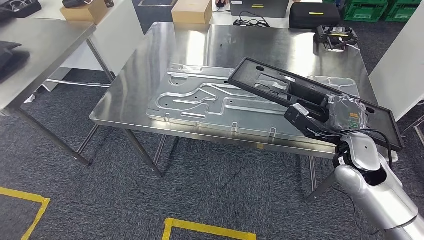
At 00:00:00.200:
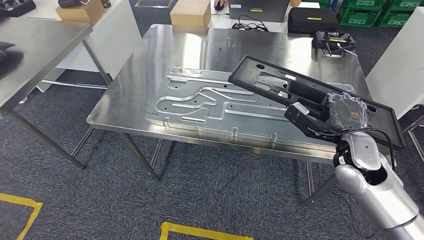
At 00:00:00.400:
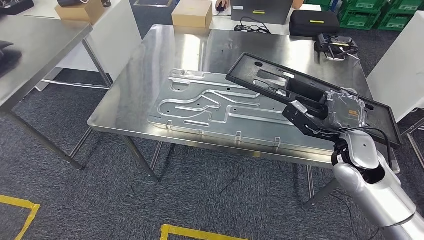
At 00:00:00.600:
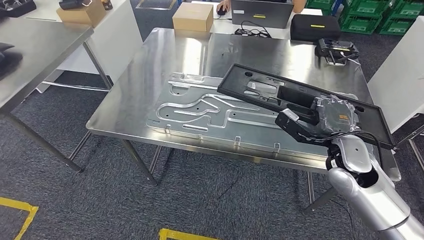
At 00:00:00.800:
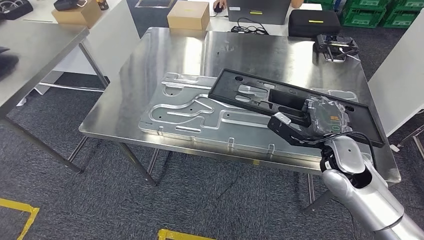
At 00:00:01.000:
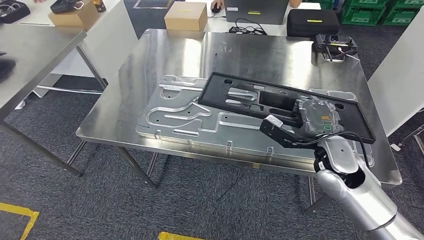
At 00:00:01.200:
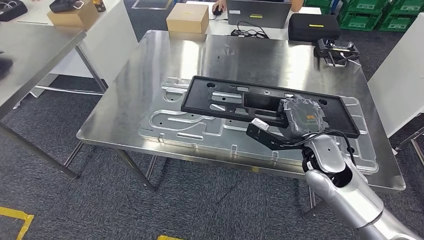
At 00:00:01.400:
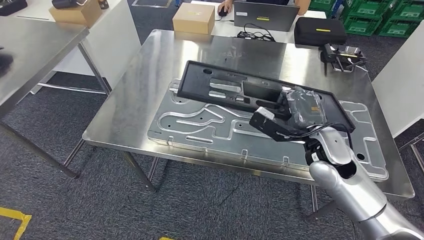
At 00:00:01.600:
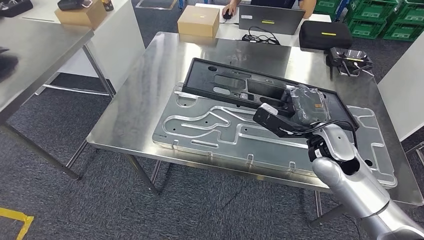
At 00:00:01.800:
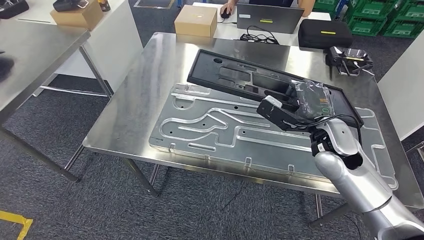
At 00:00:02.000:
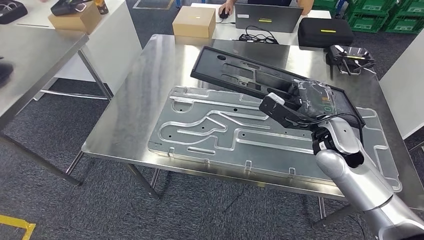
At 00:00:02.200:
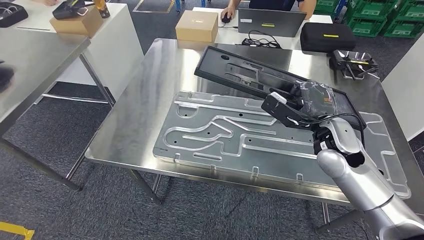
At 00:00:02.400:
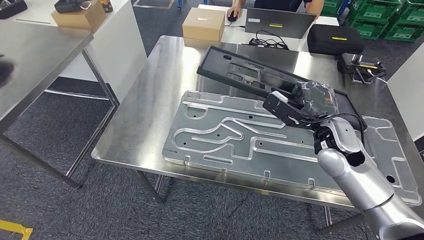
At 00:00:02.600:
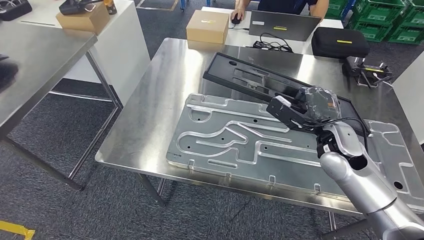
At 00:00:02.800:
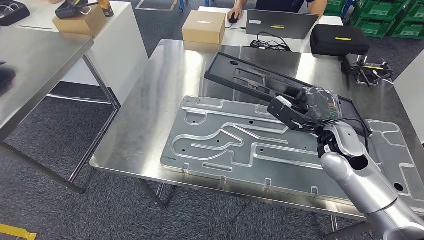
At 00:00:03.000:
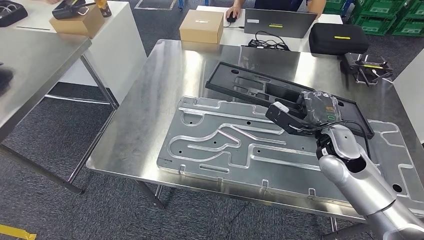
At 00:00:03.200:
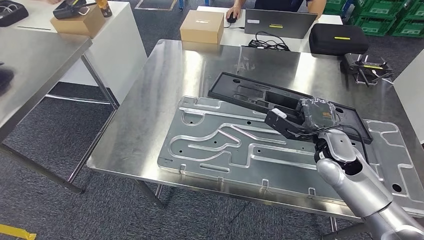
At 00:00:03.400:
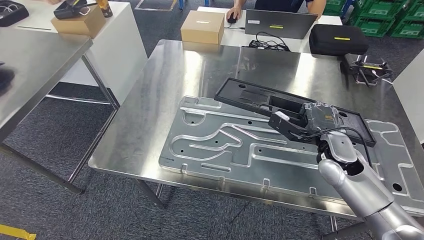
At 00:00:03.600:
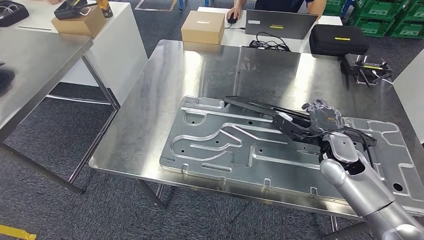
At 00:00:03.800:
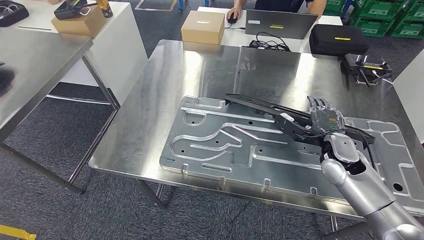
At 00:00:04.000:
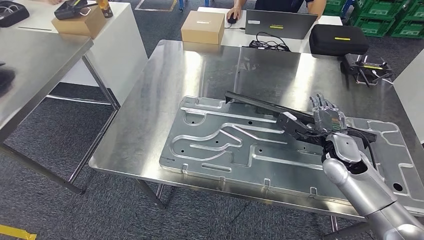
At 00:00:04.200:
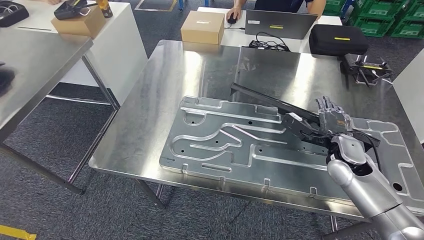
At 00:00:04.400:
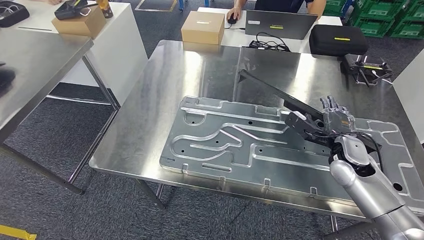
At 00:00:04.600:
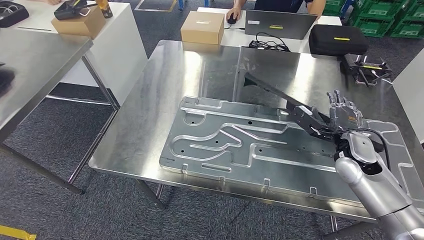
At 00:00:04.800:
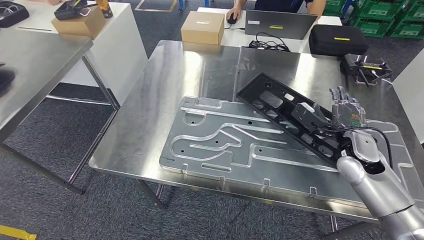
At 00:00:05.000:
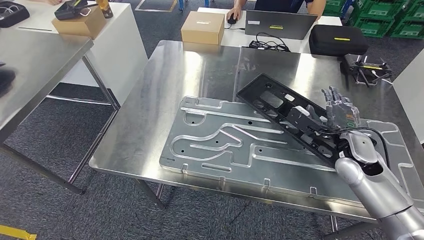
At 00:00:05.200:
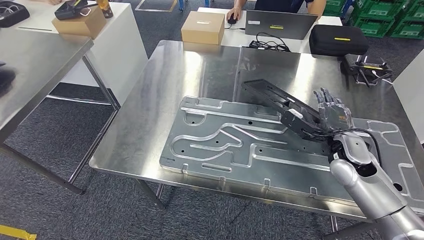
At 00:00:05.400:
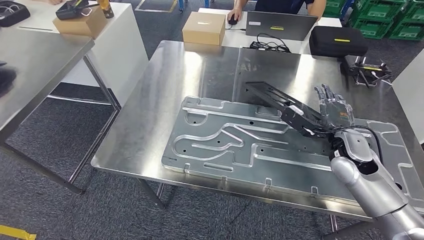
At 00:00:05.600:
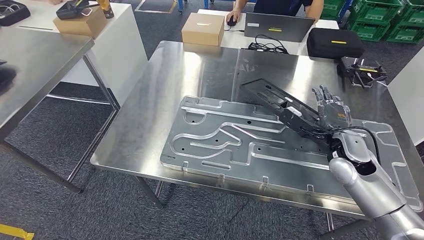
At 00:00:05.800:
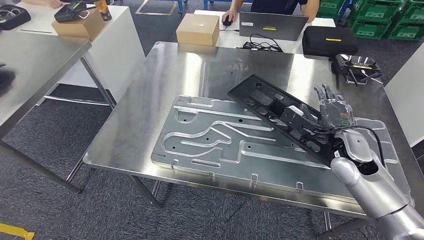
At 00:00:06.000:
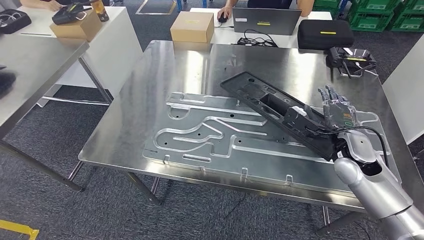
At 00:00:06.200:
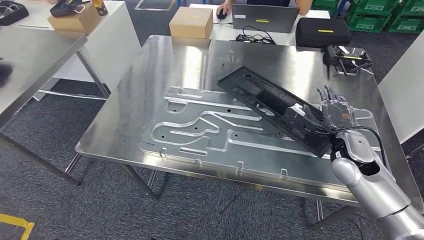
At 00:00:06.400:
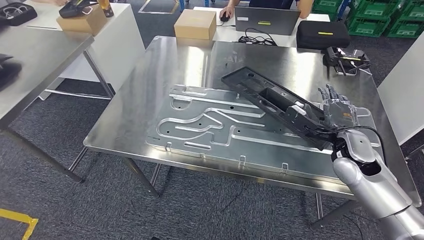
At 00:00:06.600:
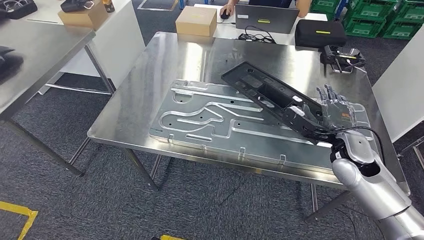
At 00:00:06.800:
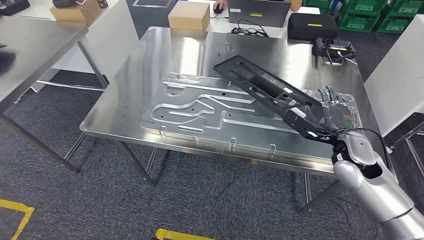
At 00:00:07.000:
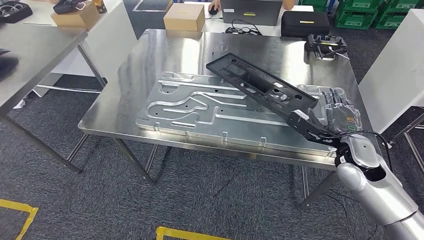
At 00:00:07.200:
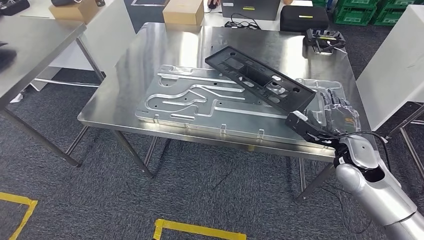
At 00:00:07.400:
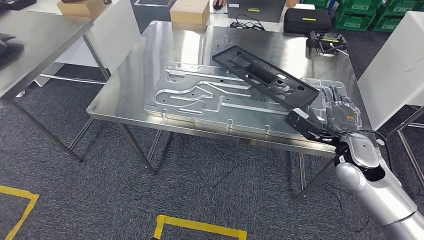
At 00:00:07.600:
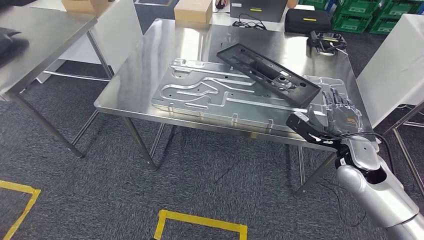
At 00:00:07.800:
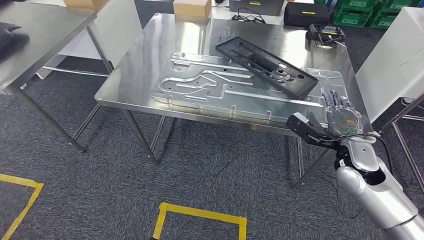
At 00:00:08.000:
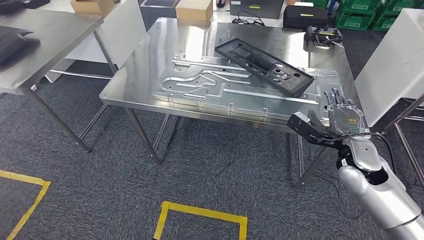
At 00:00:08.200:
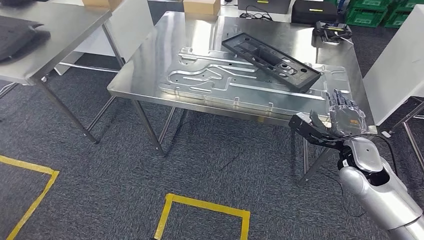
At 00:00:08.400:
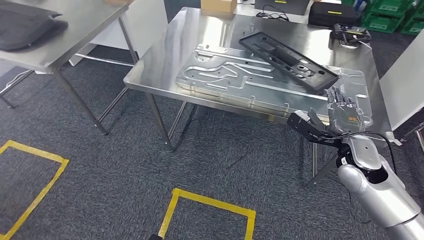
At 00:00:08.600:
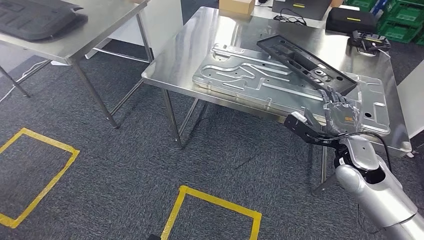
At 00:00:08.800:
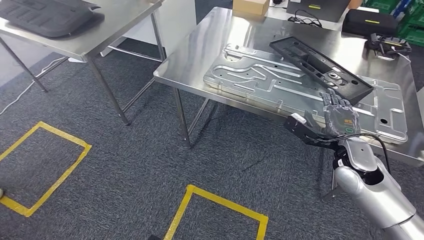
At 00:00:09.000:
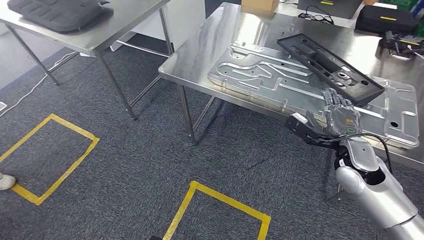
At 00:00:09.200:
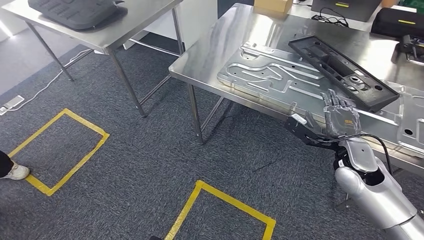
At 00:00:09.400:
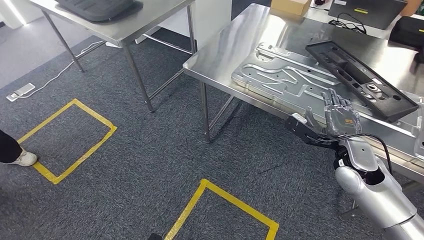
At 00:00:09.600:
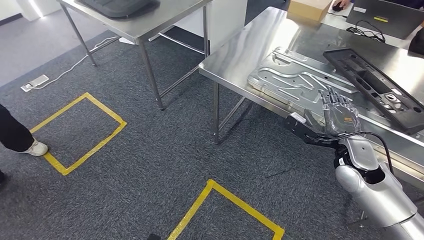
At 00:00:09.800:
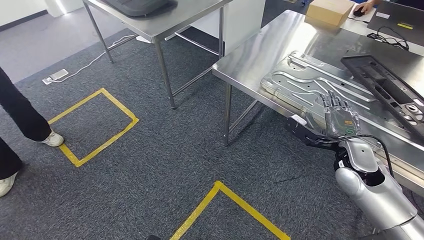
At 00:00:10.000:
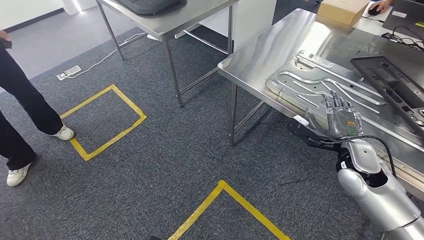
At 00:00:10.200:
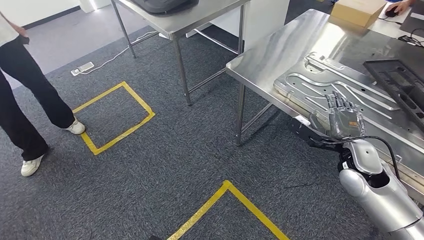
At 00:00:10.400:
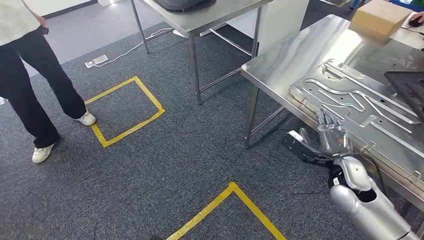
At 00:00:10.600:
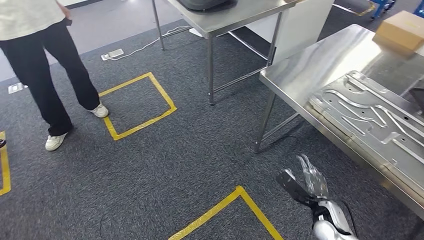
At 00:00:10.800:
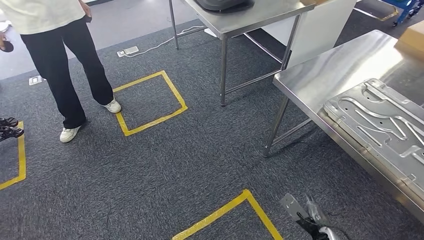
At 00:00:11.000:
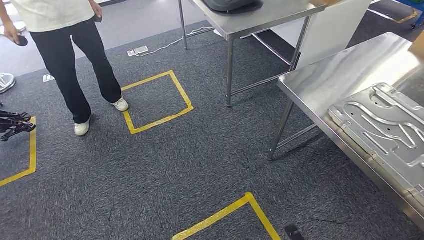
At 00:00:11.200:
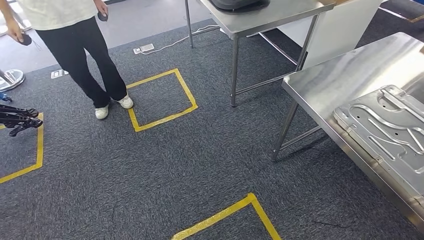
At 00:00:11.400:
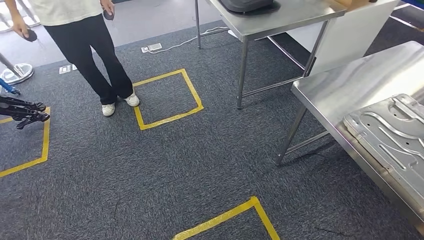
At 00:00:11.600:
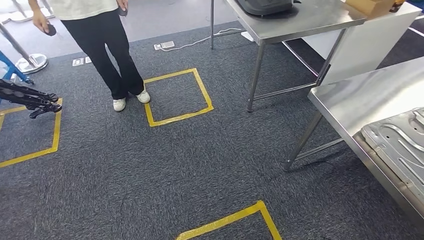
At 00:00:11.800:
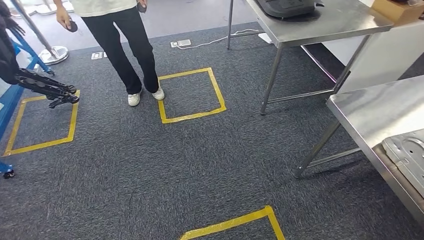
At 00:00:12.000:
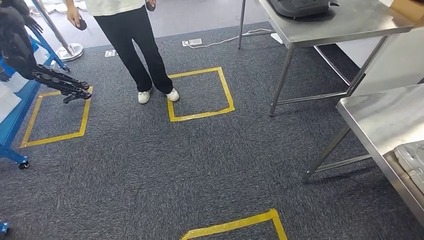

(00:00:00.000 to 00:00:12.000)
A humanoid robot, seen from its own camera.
Step, 00:00:00.000 - 00:00:08.800: Insert the large material into the corresponding slot on the workbench.
00:00:03.000 - 00:00:04.400: The right hand travels to the right by approximately 5 cm.

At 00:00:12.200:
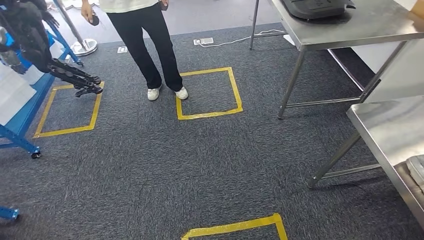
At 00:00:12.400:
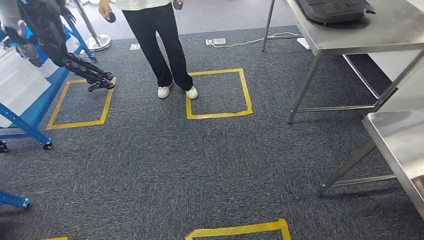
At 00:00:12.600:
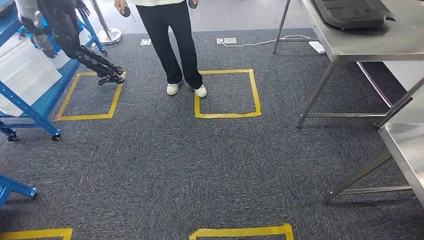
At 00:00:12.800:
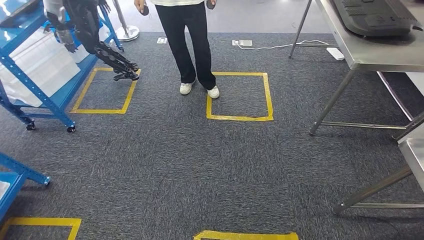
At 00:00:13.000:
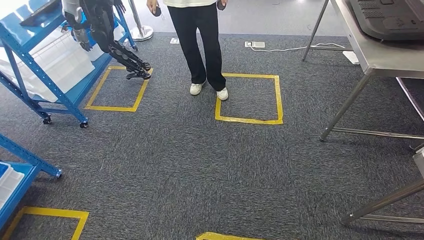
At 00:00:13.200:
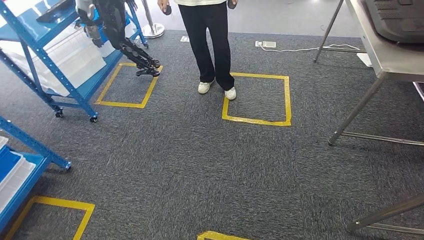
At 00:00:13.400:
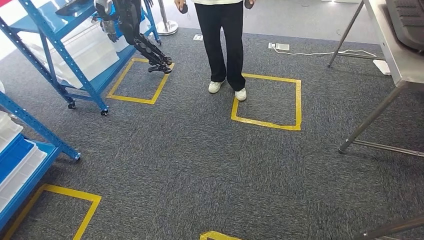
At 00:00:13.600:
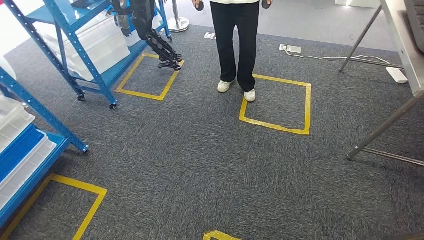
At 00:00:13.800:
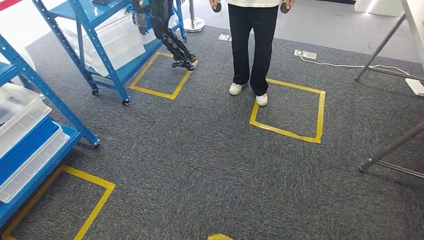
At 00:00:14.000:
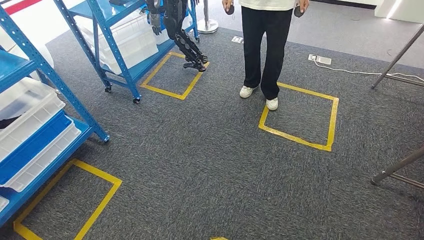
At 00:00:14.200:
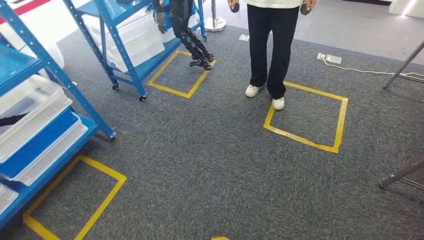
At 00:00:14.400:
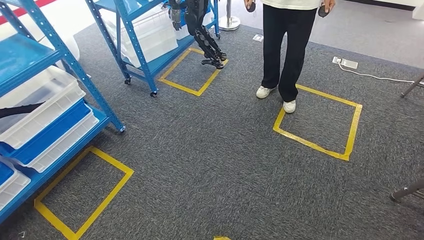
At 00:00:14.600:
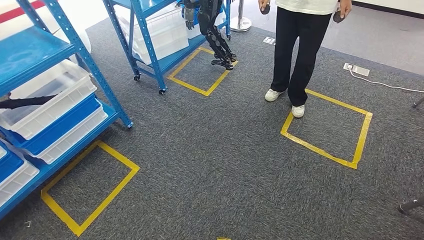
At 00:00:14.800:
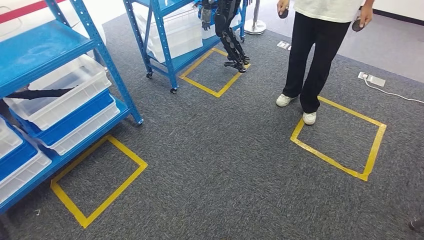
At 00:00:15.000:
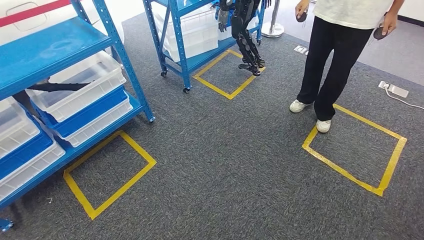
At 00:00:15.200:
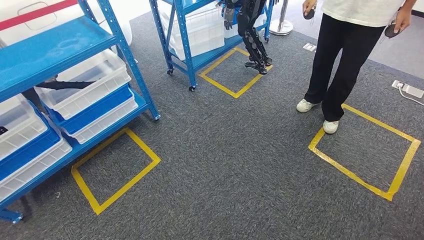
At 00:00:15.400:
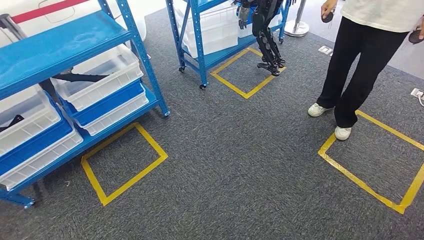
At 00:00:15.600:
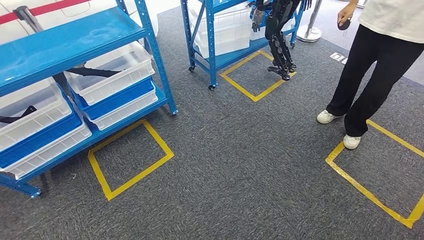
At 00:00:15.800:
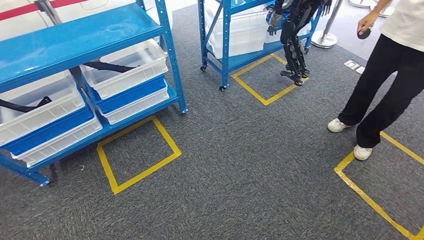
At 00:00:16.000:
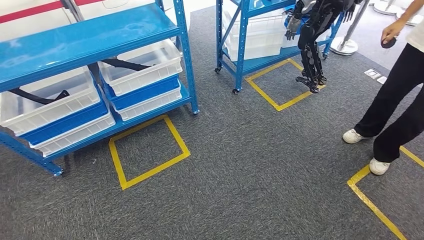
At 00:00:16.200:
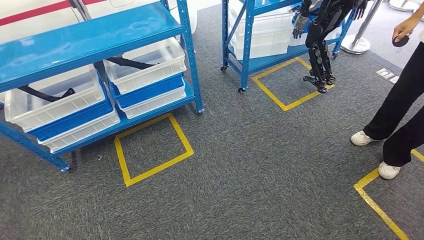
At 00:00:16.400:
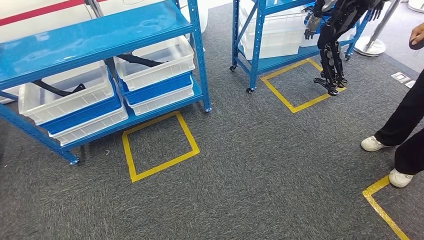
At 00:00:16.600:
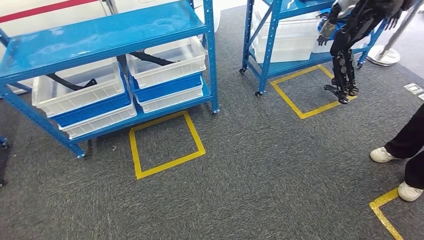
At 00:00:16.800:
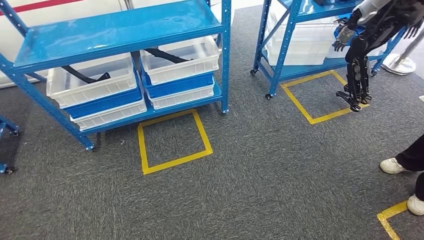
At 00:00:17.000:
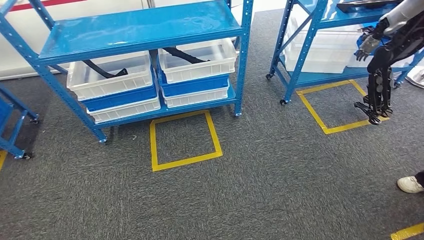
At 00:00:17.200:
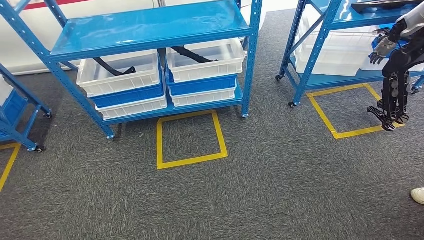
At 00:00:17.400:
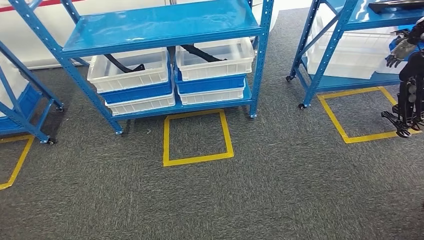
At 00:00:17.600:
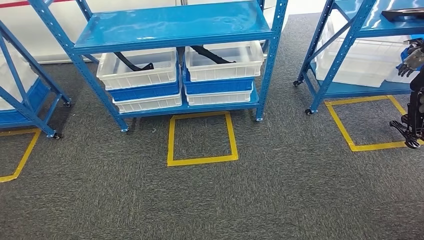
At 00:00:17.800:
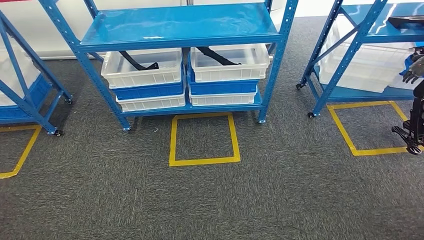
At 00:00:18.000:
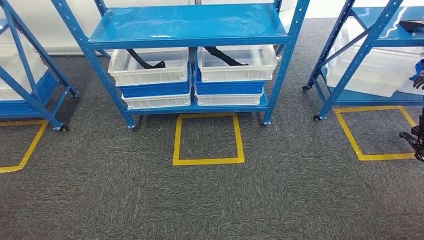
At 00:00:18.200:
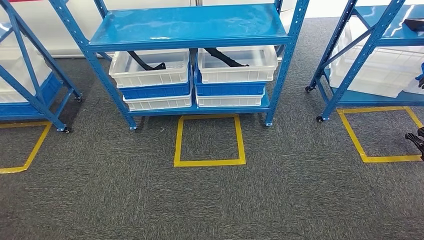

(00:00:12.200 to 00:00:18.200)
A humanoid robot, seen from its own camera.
Step, 00:00:12.200 - 00:00:18.200: Return to the initial position at the shelf.
